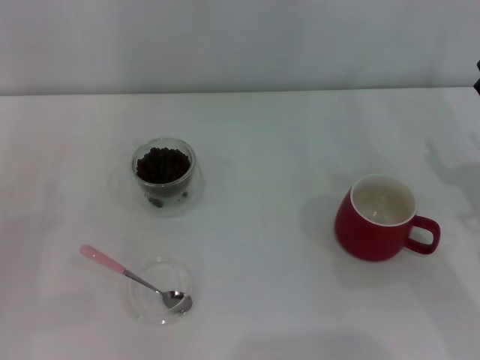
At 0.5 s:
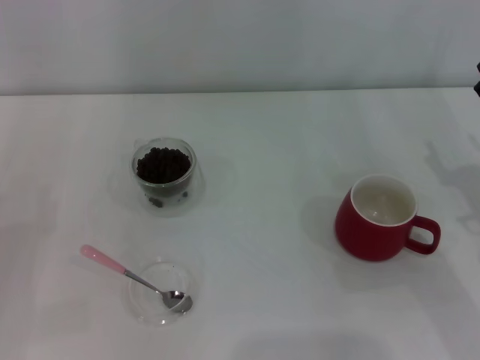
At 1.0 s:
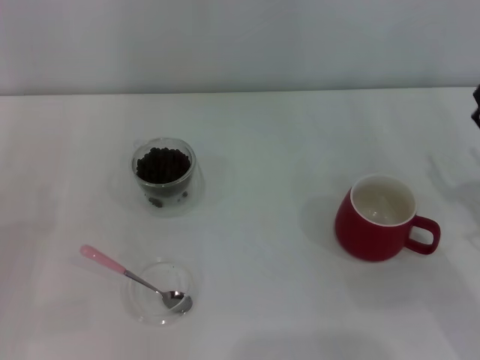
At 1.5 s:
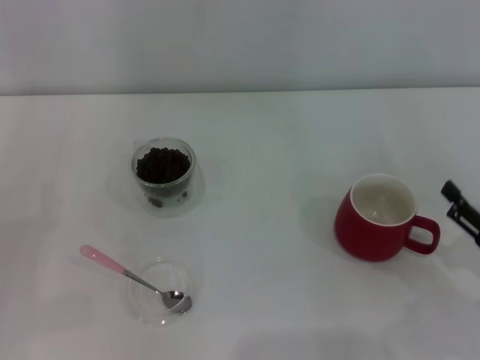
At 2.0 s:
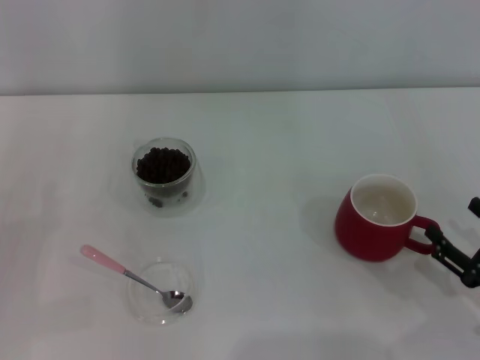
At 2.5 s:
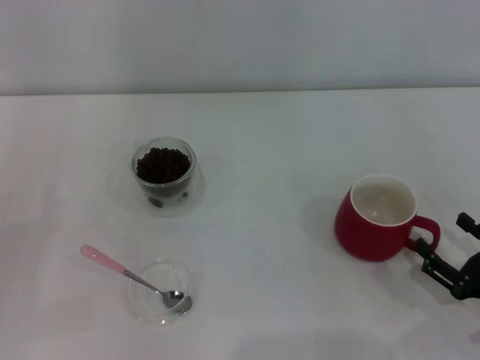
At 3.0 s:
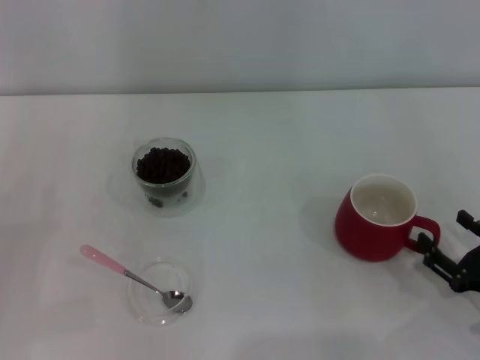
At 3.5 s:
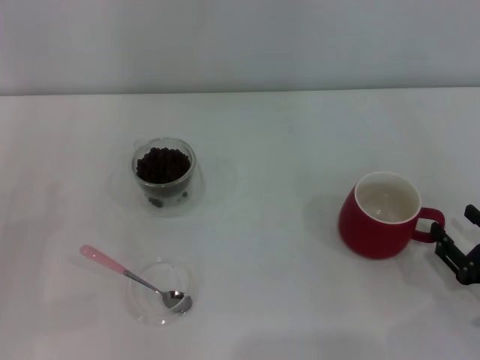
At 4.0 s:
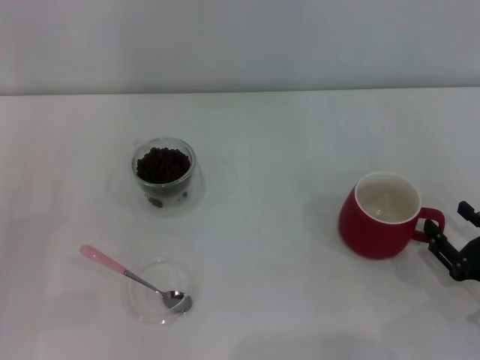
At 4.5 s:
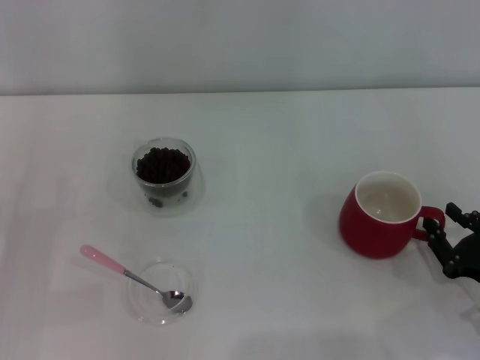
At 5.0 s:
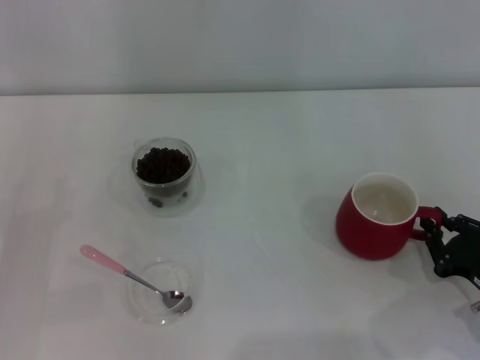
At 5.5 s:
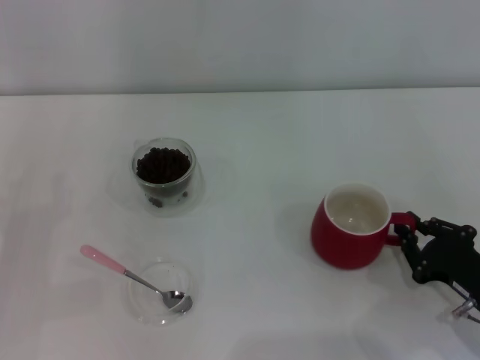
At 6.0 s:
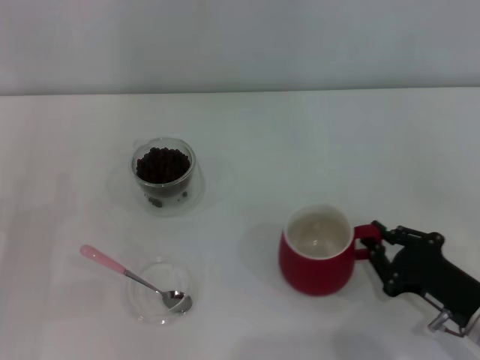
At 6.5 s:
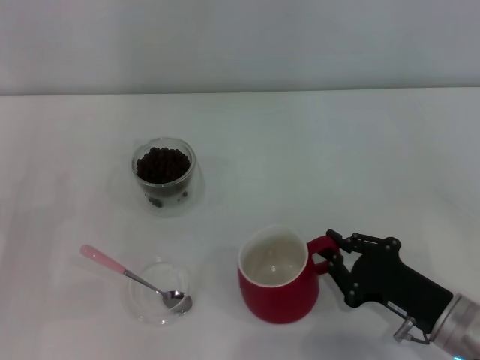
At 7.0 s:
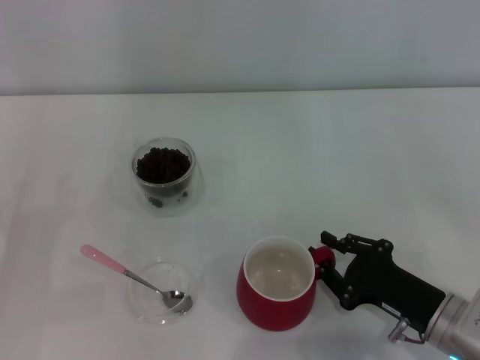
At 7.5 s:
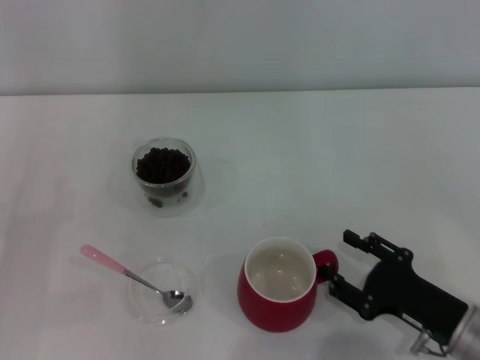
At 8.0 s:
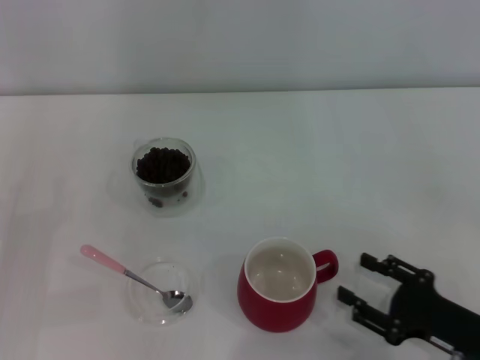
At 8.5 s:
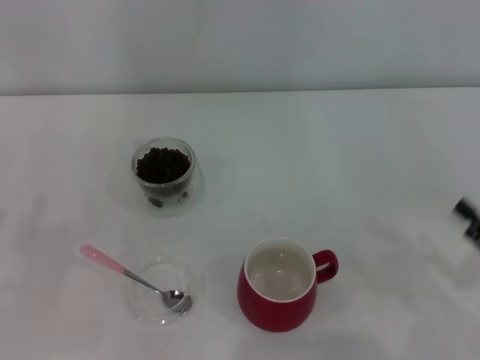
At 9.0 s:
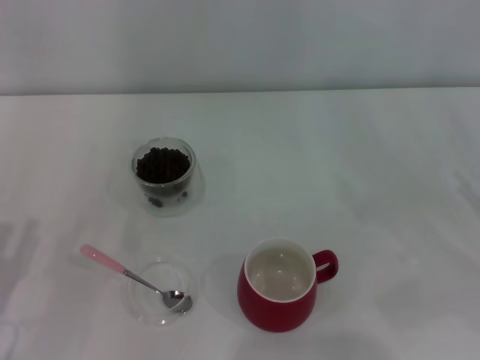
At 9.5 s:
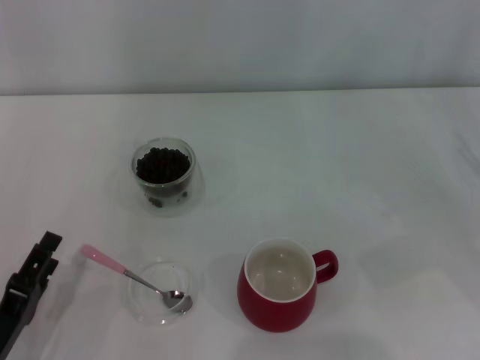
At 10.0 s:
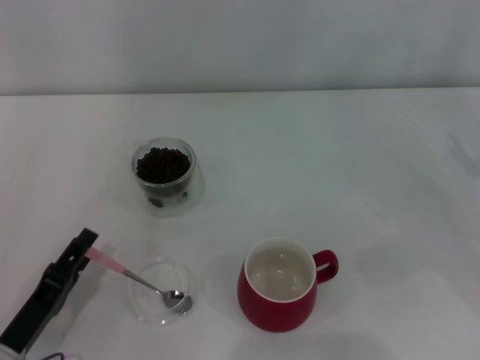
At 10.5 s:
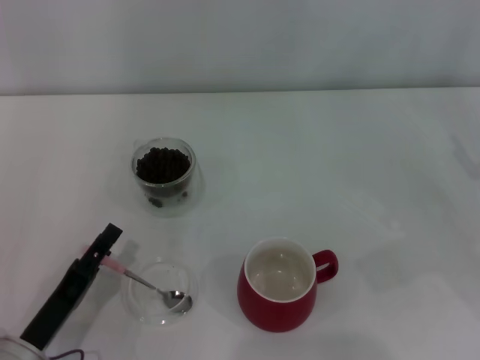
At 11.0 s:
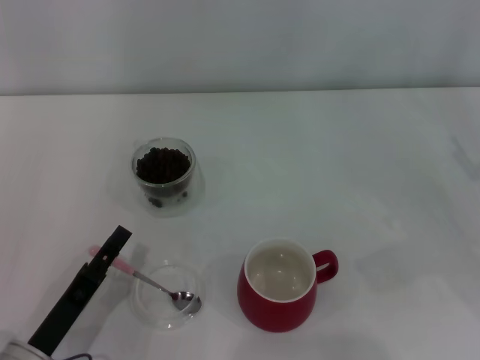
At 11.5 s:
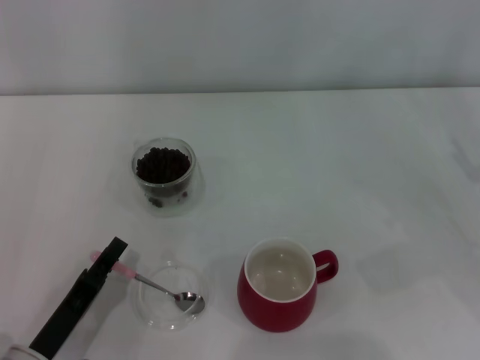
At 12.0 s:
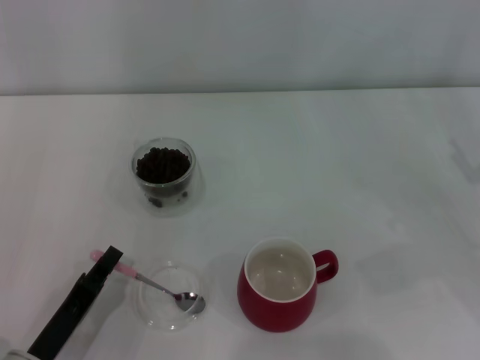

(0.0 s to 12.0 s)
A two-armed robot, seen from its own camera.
Task of the whole recording: Use a pink spoon to take out the coffee beans from the glass and pour them into the red cup.
Step, 0.0 s - 7.5 s: Move the cup to the center of view with the left gripper.
0.0 s - 2.0 s: The right gripper moves backward and downward, approximately 10 cm.
2.0 s - 4.0 s: There are only small adjustments of the grippers.
4.0 s - 6.0 s: The right gripper travels to the left by some 5 cm, and closes up.
6.0 s - 8.0 s: The right gripper opens up.
8.0 s - 10.0 s: The left gripper moves to the right, backward and downward, about 15 cm. Meanwhile the right gripper shifts some 20 cm upward, to the right and forward.
10.0 s - 12.0 s: The left gripper closes.

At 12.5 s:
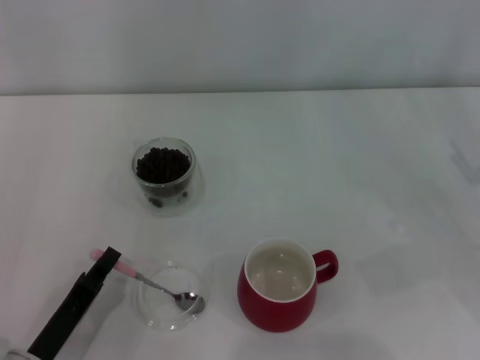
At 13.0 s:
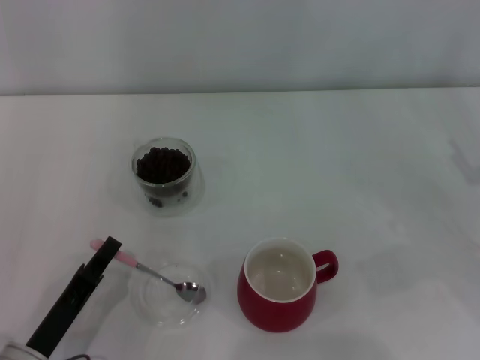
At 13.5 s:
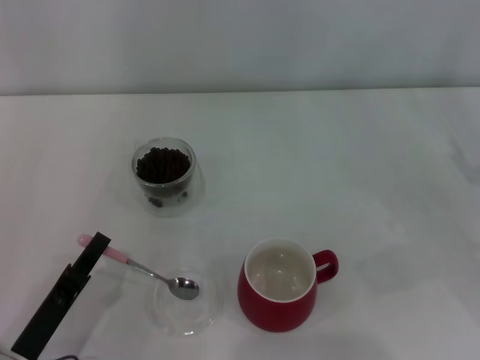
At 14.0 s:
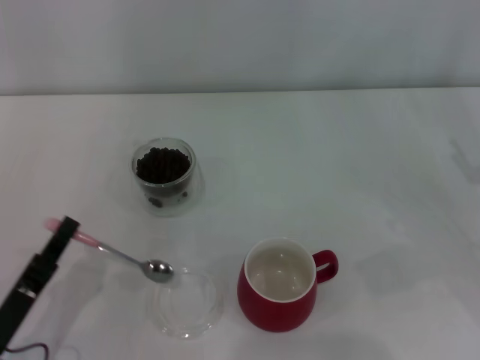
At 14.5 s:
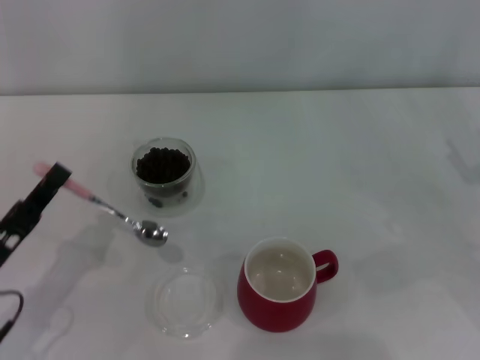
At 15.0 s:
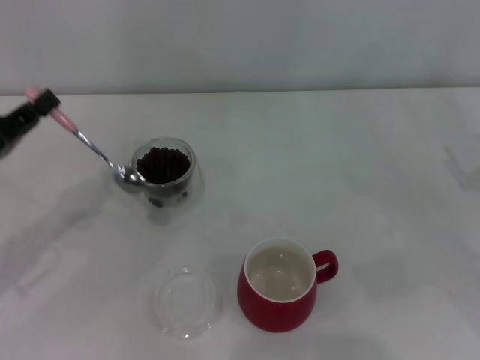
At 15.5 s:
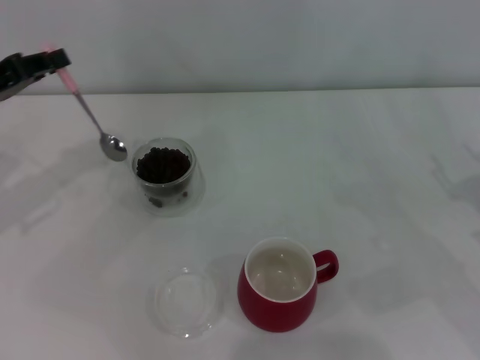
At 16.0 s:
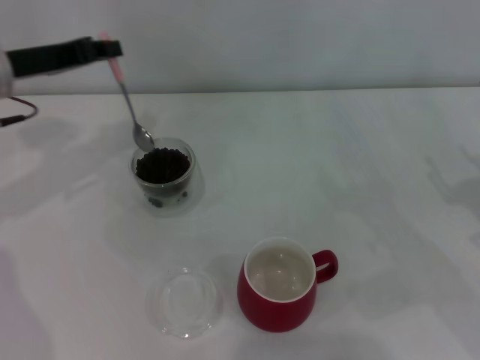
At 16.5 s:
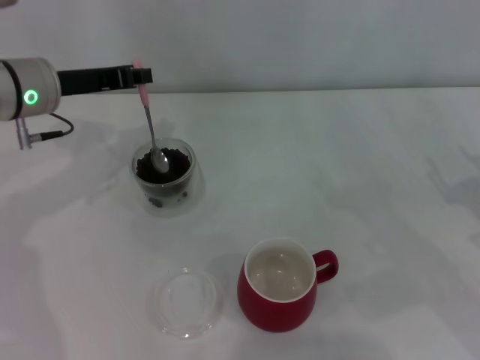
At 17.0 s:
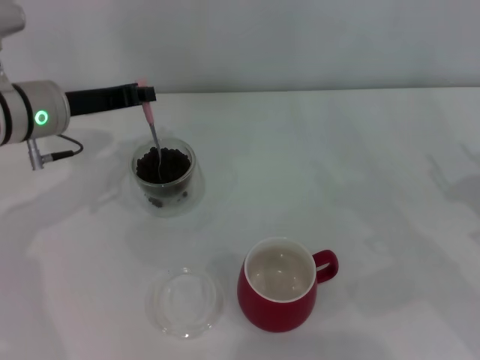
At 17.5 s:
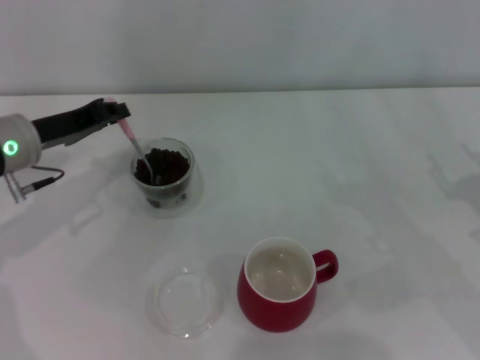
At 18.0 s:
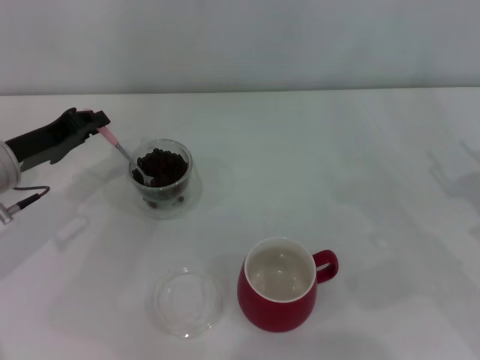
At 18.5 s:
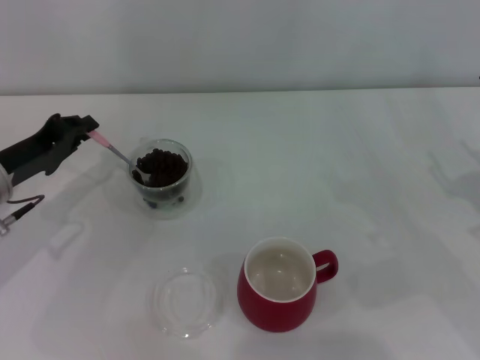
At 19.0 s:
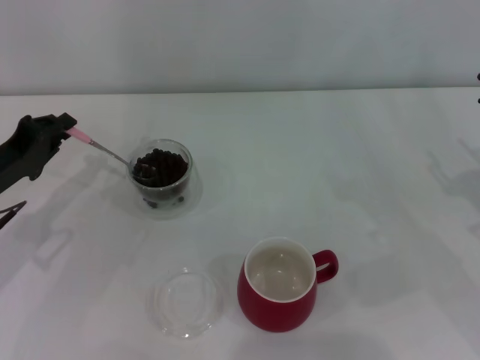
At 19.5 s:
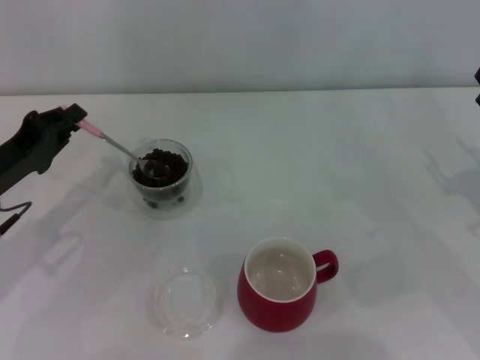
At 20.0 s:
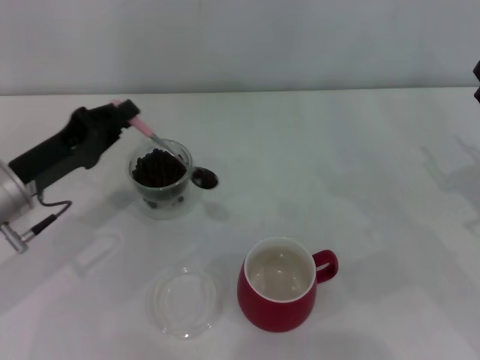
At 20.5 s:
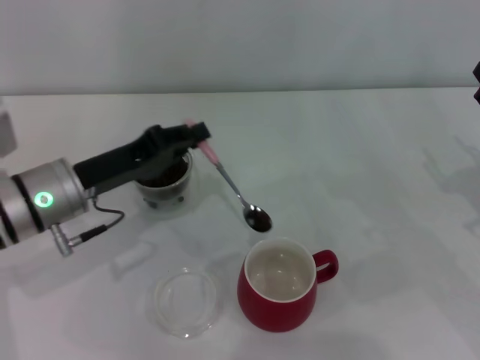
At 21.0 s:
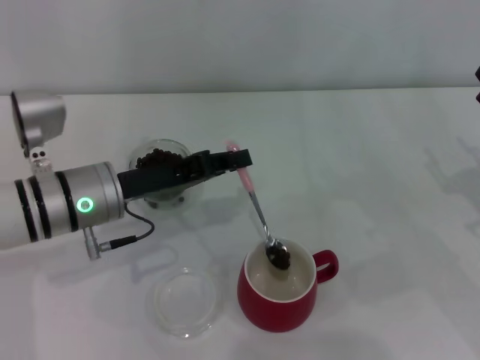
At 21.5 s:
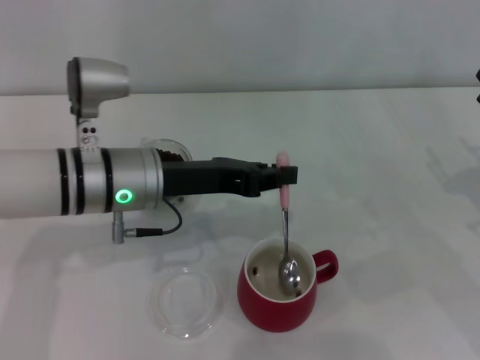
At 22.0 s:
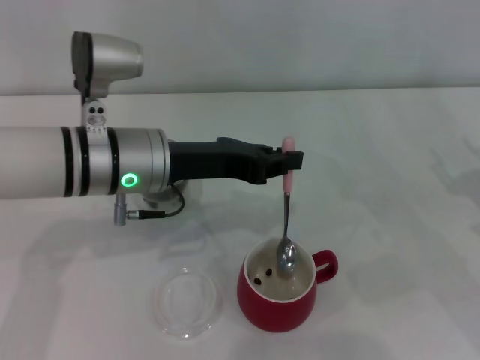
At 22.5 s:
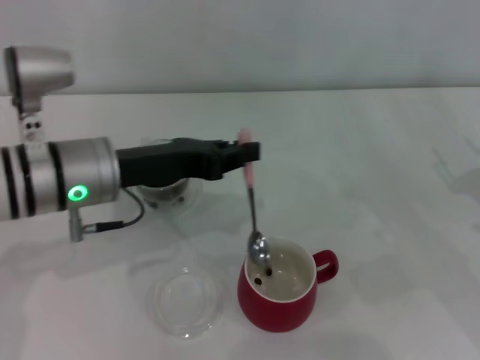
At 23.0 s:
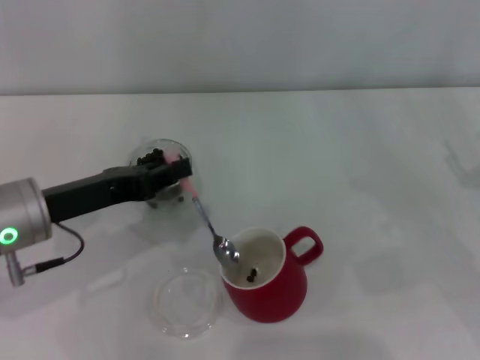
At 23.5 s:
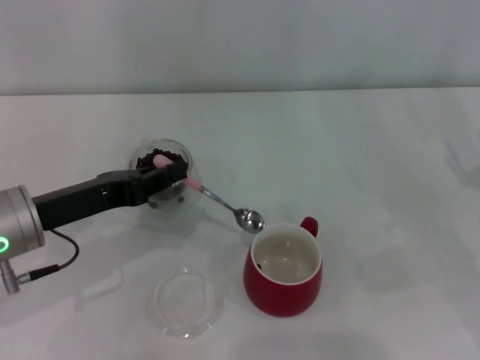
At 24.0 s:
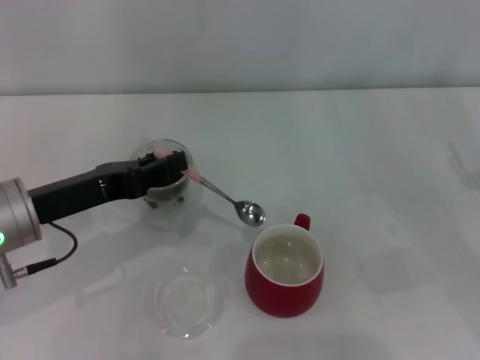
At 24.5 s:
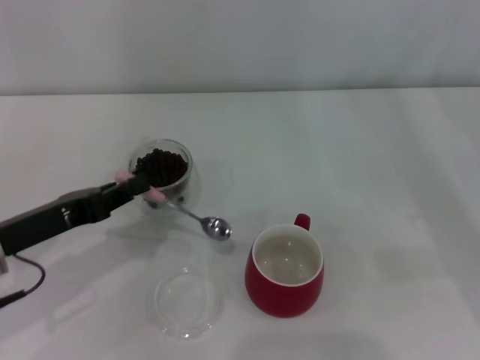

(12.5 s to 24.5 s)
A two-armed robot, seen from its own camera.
Task of the whole recording: Use a pink spoon to take out the coffee beans from the glass and pour them into the red cup.
12.5 s - 14.5 s: The left gripper heads upward and to the left, covering about 10 cm.
14.5 s - 16.5 s: The left gripper goes some 25 cm forward and upward.
16.5 s - 18.5 s: The left gripper heads downward, backward and to the left, covering approximately 10 cm.
18.5 s - 20.5 s: The left gripper heads to the right, covering some 10 cm.
20.5 s - 22.5 s: The left gripper goes approximately 5 cm upward.
22.5 s - 24.5 s: The left gripper travels to the left and backward by roughly 10 cm.

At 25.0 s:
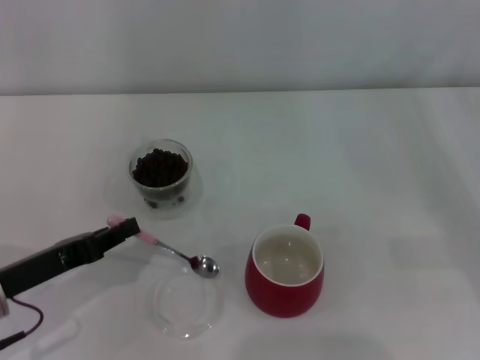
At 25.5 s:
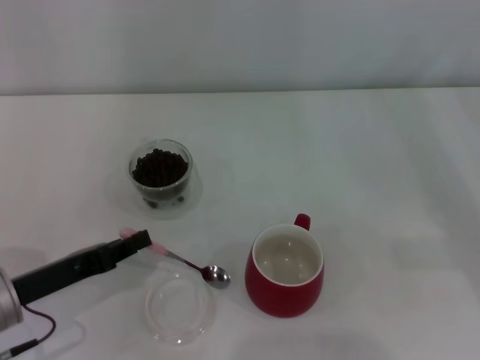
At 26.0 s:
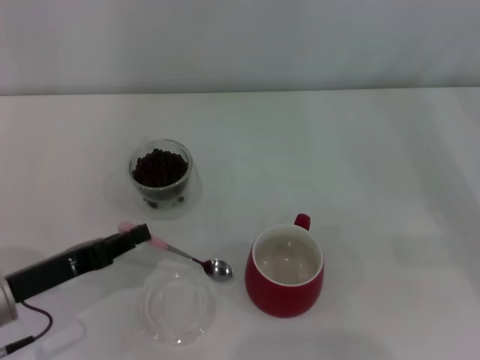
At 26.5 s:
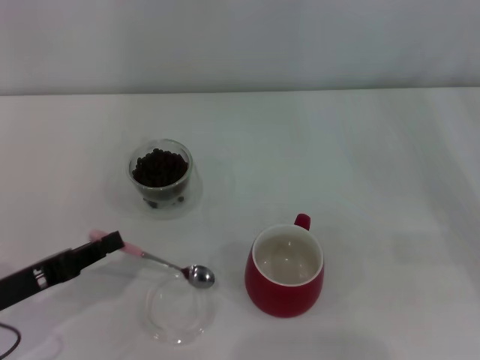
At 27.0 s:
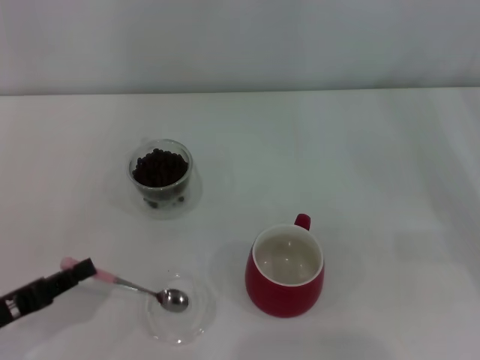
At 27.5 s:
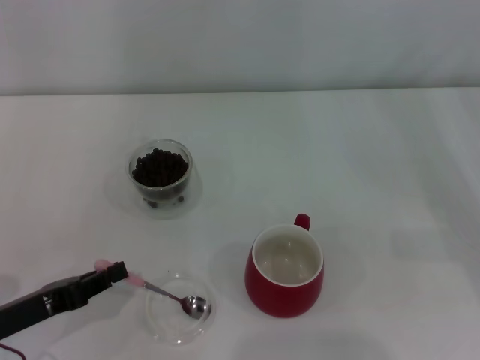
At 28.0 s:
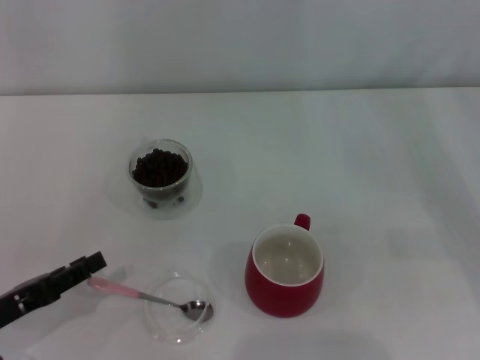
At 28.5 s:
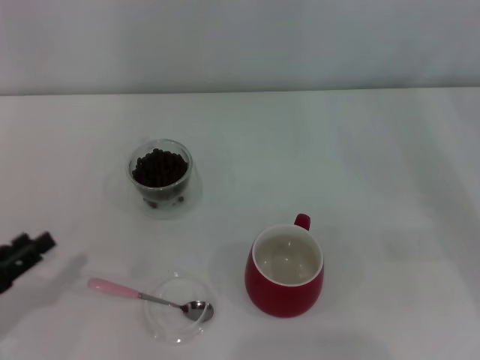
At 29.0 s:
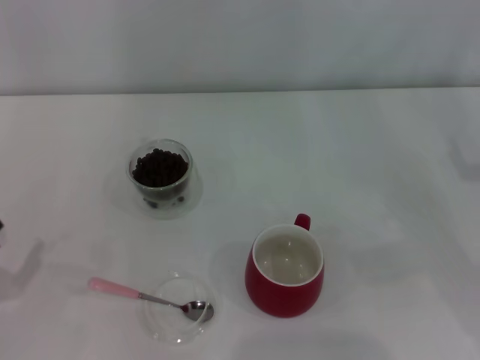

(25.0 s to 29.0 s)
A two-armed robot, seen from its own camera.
Task of the whole recording: Use a pink spoon to take out the coffee beans from the glass and pour them into the red cup.
25.0 s - 27.0 s: The left gripper shifts by some 5 cm.
27.0 s - 29.0 s: The left gripper opens.
